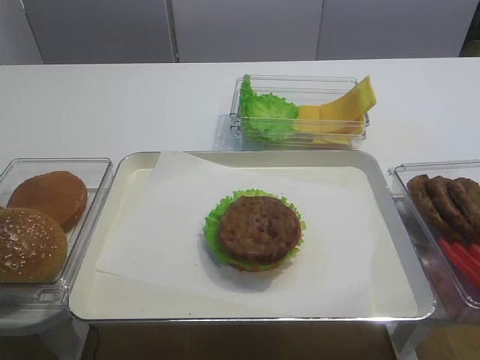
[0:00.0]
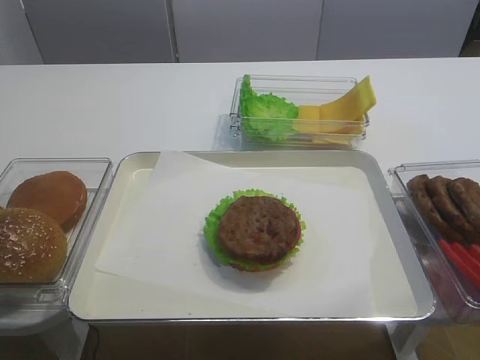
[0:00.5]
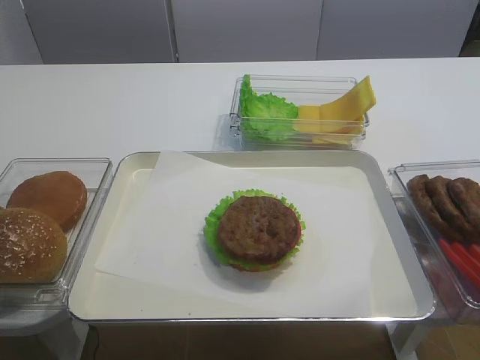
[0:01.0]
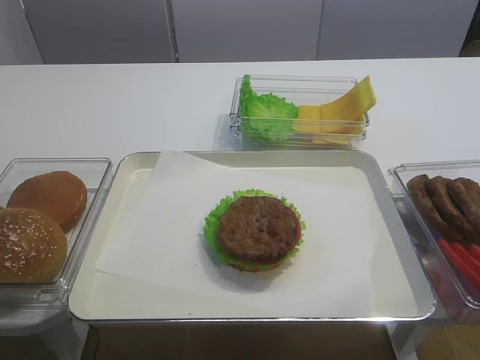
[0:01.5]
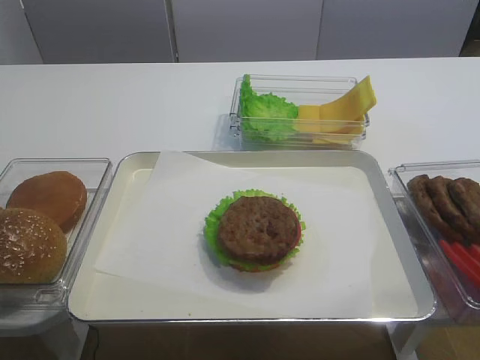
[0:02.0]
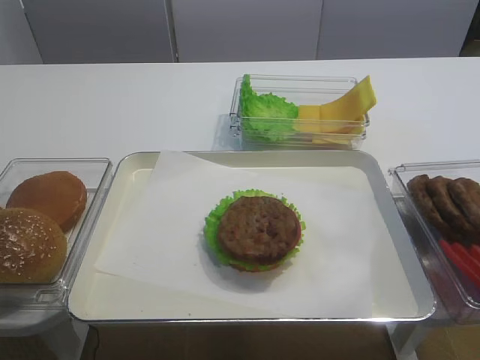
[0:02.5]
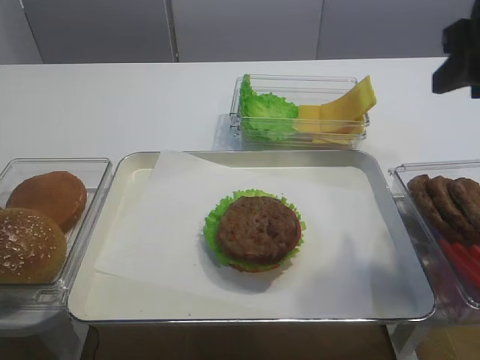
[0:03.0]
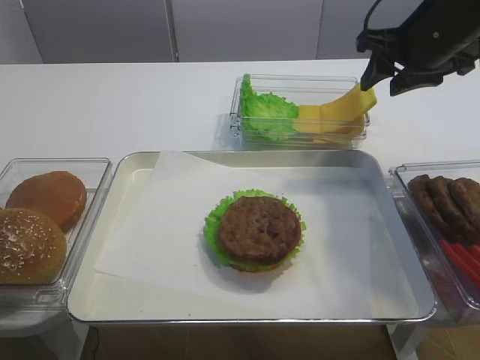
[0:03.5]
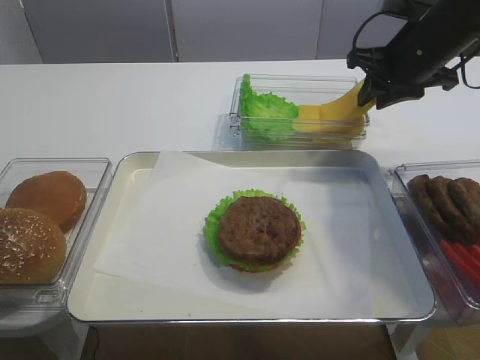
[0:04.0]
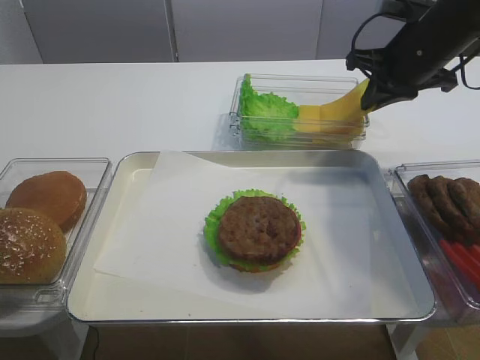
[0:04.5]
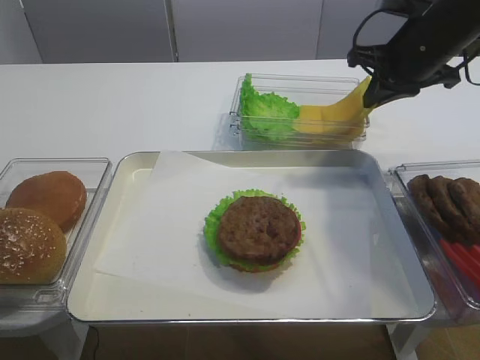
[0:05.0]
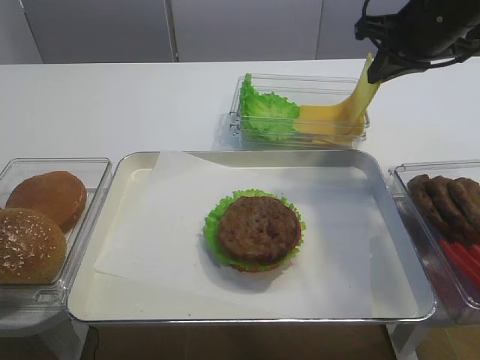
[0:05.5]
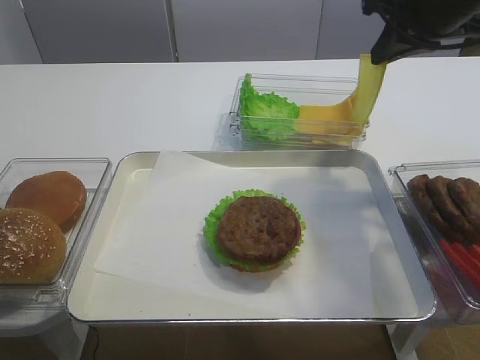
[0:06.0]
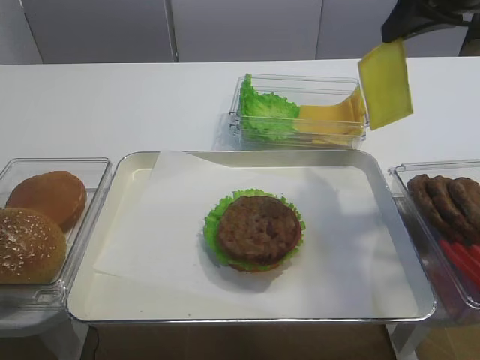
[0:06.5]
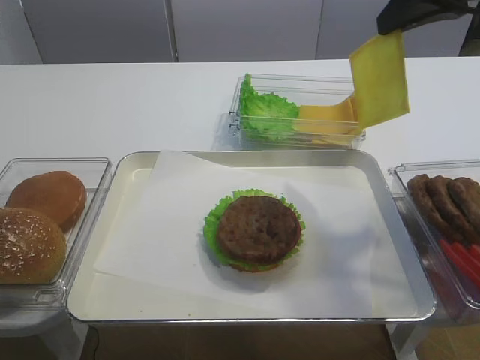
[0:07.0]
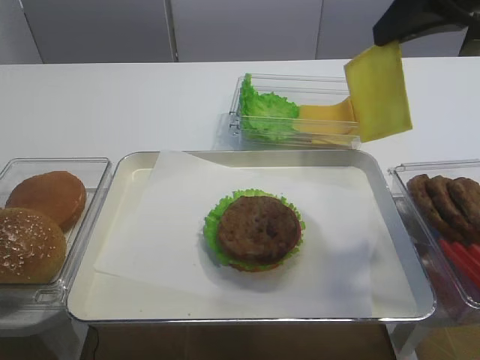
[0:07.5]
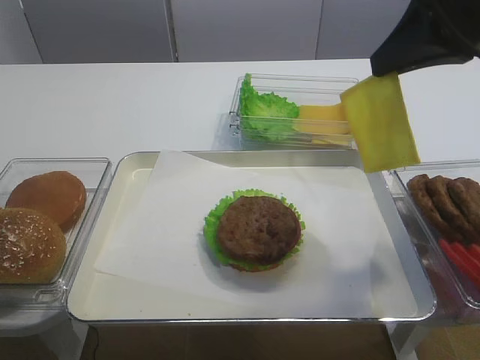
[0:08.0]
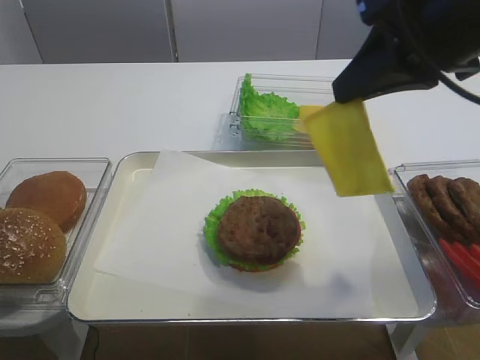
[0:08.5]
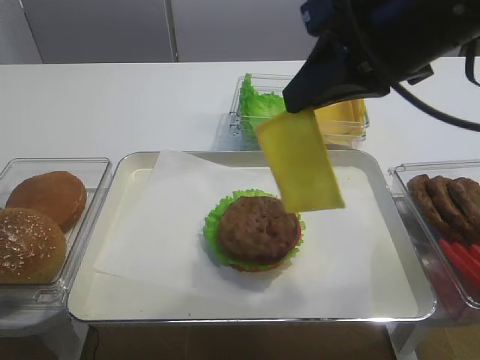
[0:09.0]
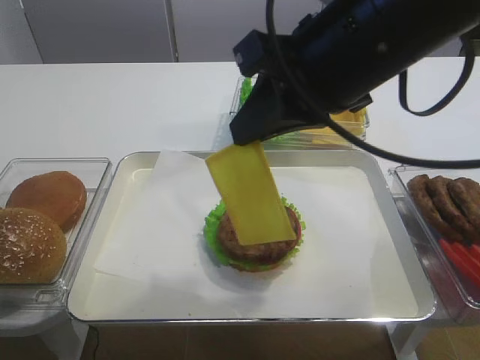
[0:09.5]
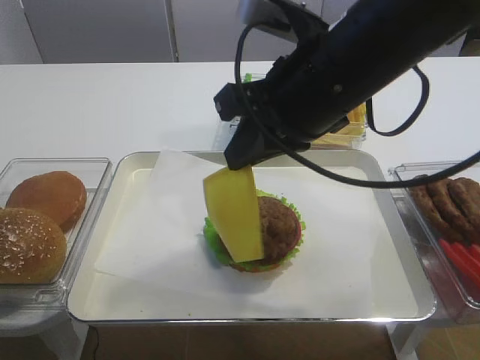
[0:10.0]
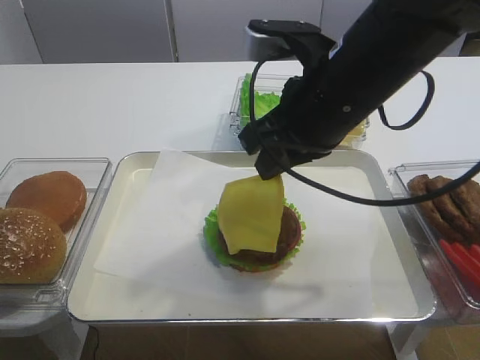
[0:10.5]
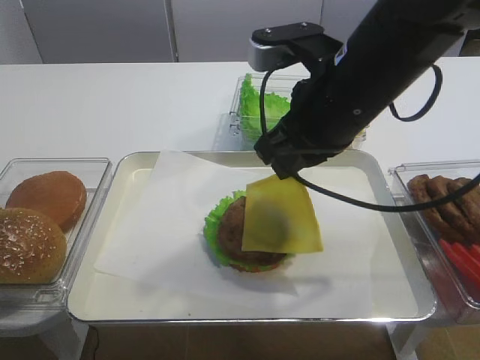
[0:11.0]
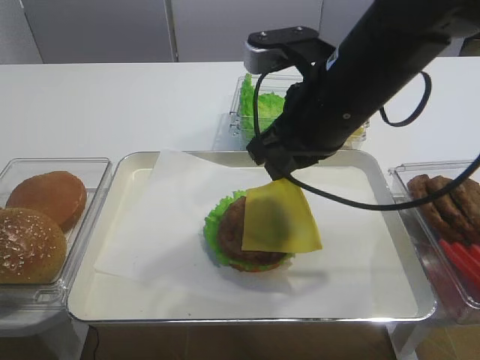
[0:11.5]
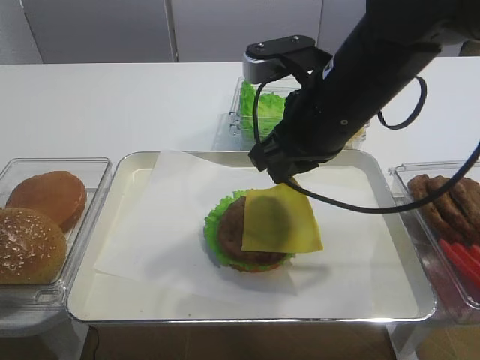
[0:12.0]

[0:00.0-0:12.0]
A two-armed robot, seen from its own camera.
Step, 0:00.0 to 0:07.0: Pick up the cheese slice with the right gripper.
0:02.0 to 0:04.0: The right gripper is displaced forward by approximately 40 cm.
0:04.0 to 0:06.0: The right gripper travels upward by approximately 5 cm, and closes its fingers.
0:06.0 to 0:08.0: The right gripper is displaced backward by approximately 10 cm.
0:08.0 to 0:10.0: The right gripper is displaced to the left and downward by approximately 15 cm.

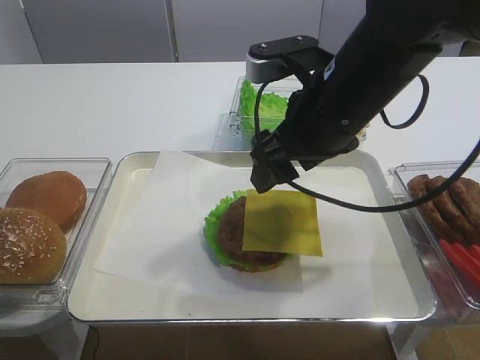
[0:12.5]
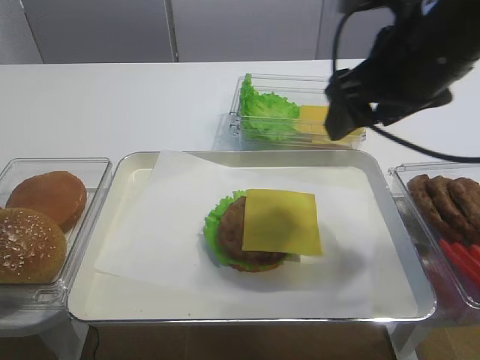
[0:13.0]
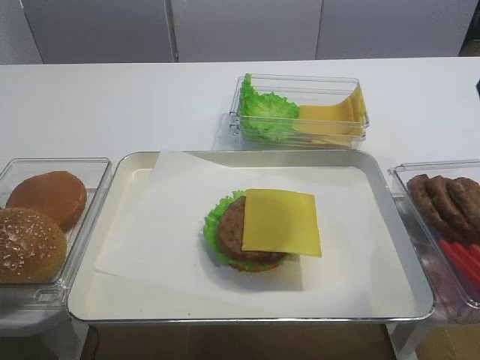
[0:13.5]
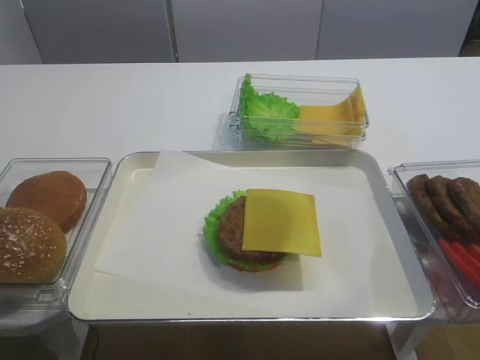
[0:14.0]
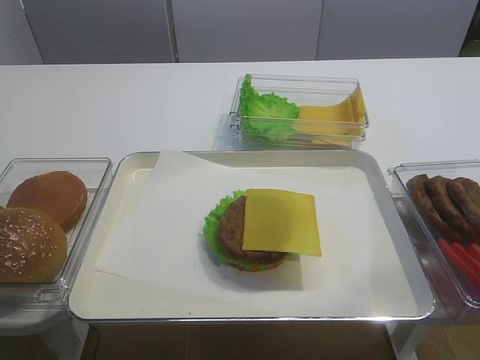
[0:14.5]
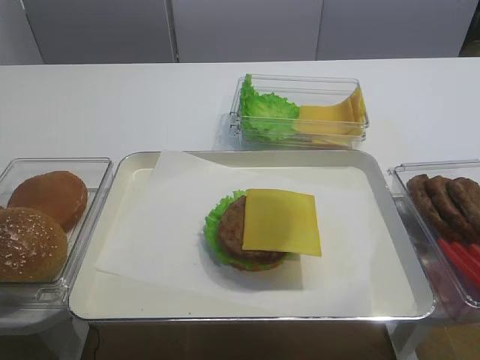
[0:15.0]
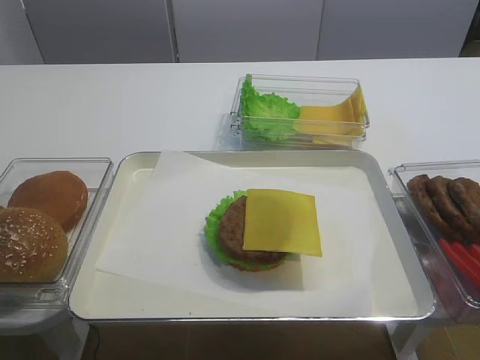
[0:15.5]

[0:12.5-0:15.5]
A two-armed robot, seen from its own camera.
0:12.5 to 0:14.0: The right gripper heads to the right, backward and upward, covering about 25 cm.

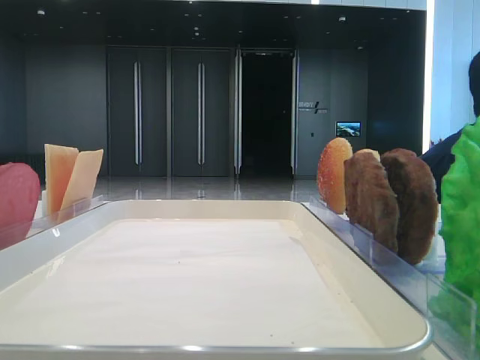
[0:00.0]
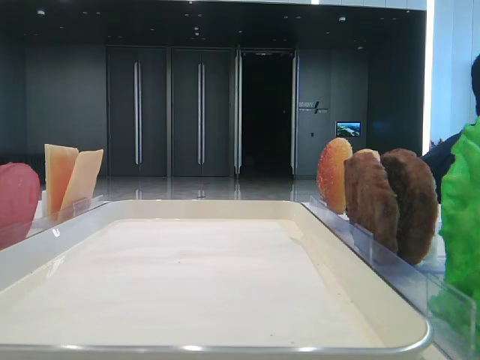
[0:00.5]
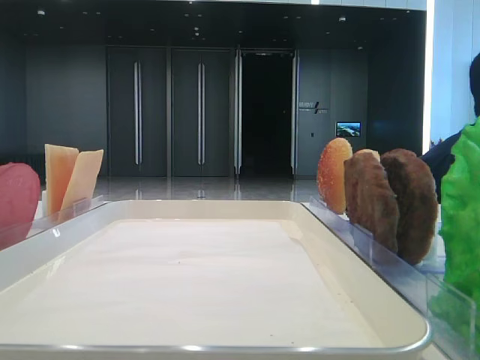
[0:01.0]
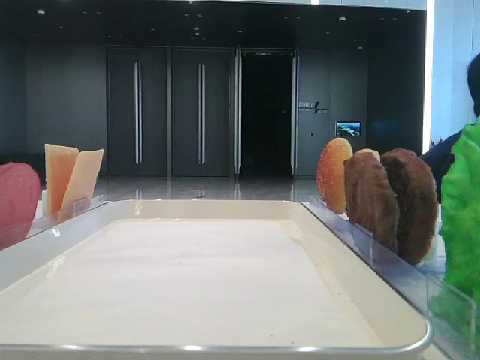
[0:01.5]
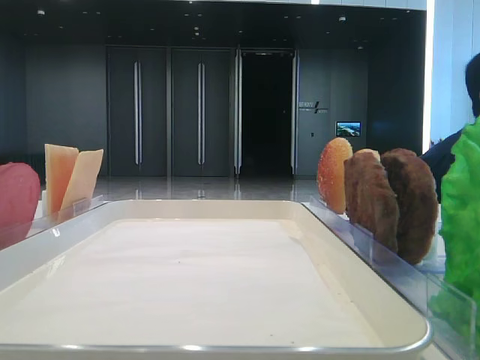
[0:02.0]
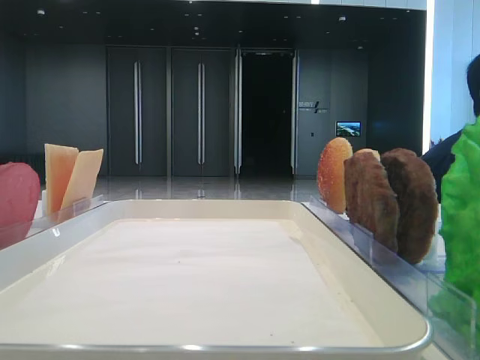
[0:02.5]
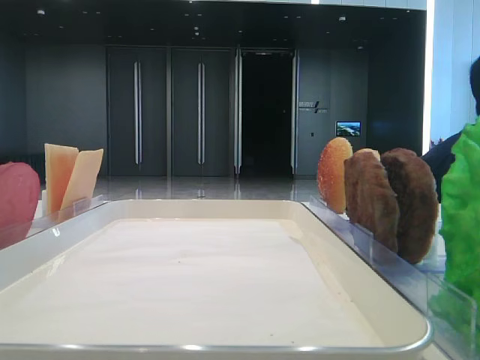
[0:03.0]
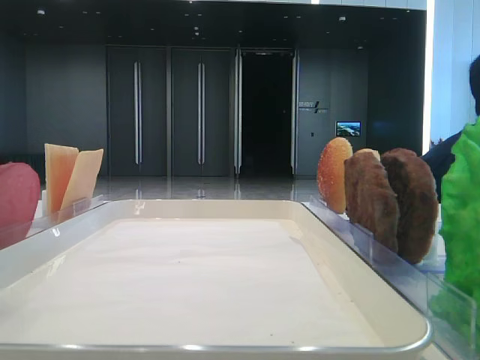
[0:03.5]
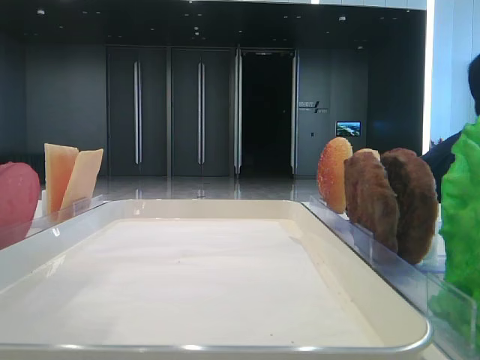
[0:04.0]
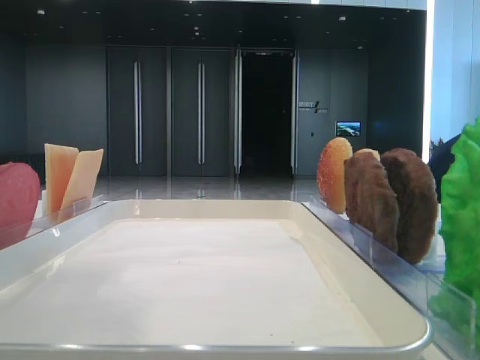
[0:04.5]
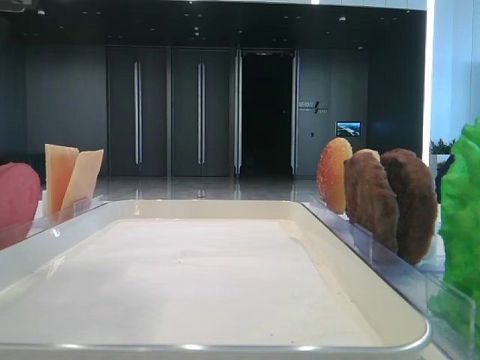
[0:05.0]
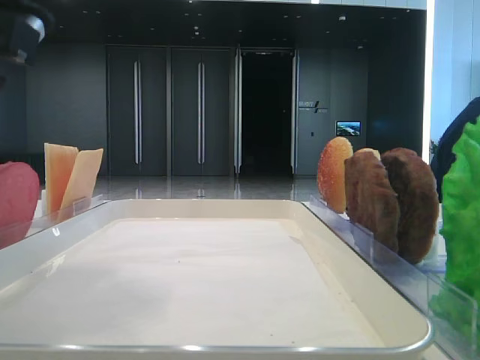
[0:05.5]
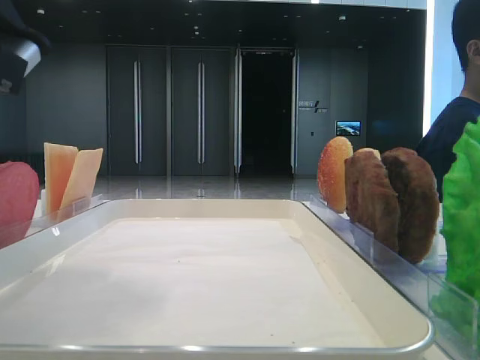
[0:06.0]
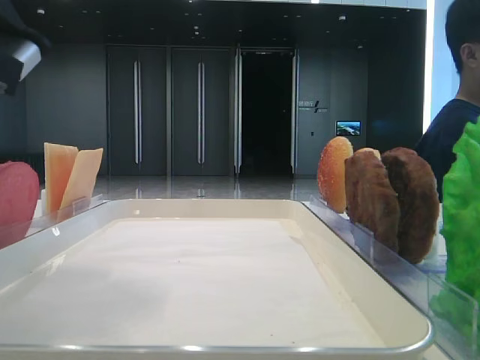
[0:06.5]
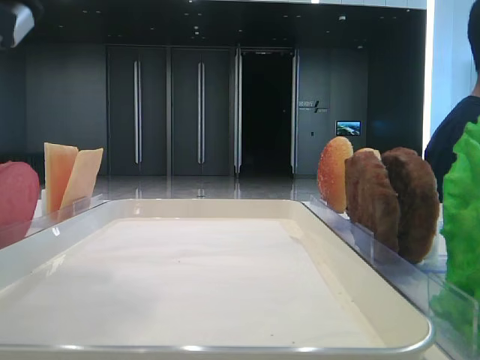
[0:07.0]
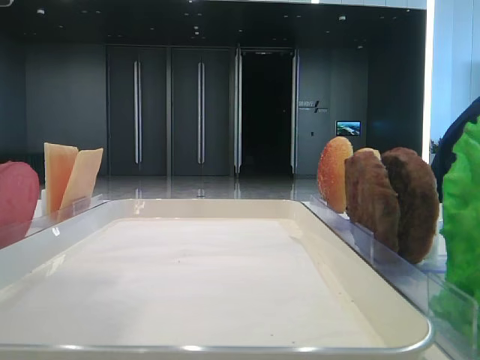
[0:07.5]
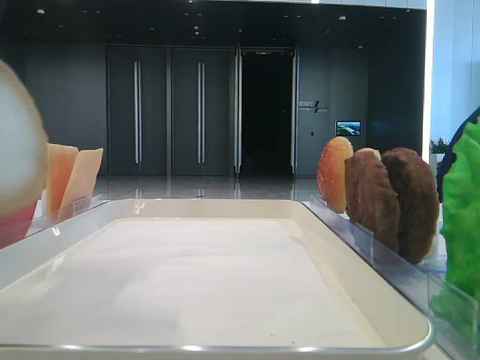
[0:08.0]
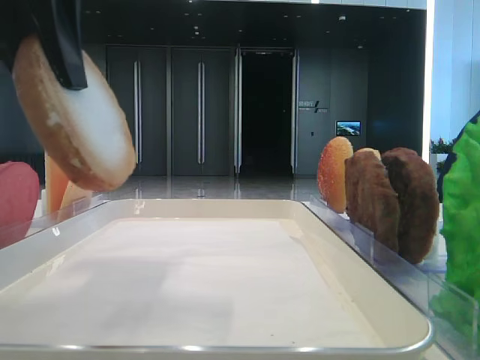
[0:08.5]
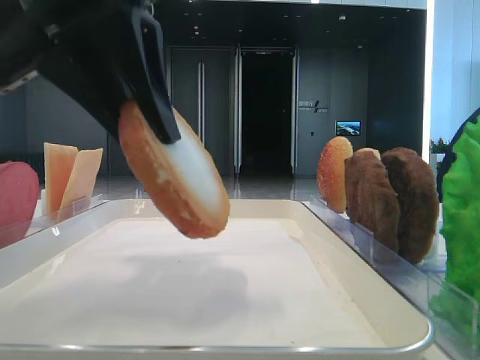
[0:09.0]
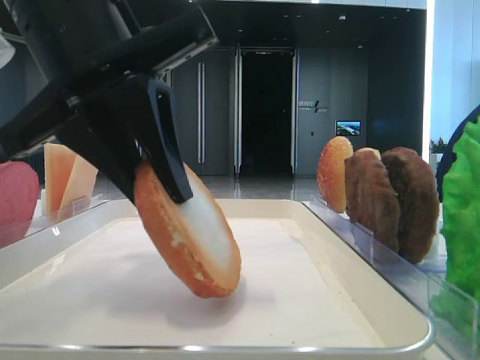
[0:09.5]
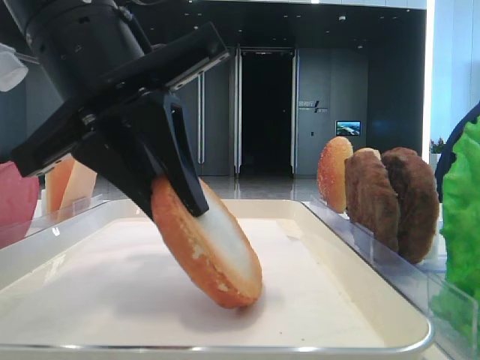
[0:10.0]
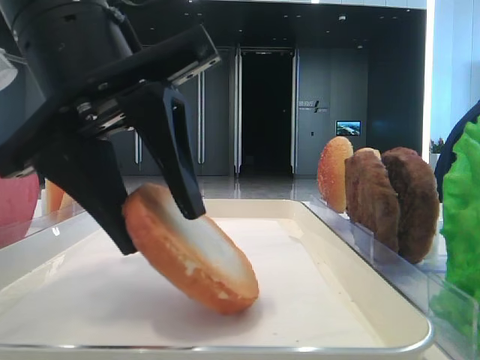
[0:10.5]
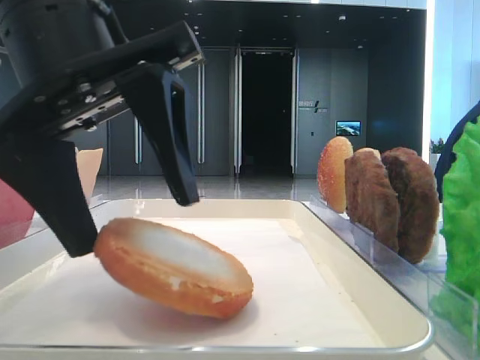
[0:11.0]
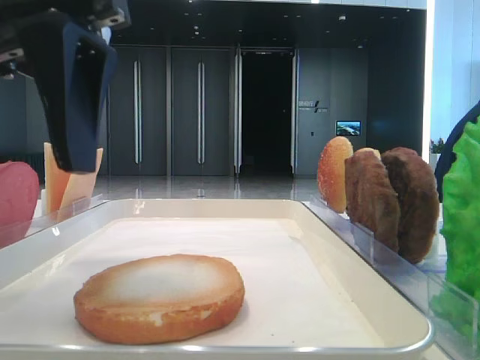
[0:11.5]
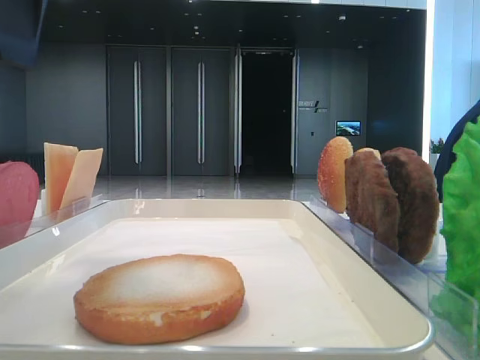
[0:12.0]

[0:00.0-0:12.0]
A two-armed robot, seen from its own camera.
Step, 0:00.0 to 0:06.5: Pick up the bottom bread with the left hand.
Step, 0:07.0 to 0:11.0: Place the bread on the tray with the left hand.
0:02.0 to 0:04.0: The left gripper heads to the right and forward, covering roughly 15 cm.
0:04.0 to 0:06.0: The left gripper heads downward, covering about 10 cm.
0:06.0 to 0:08.0: The left gripper travels upward by roughly 5 cm, and closes its fingers.
0:08.0 to 0:10.0: The left gripper heads downward and to the right, covering about 10 cm.
0:10.0 to 0:12.0: The left gripper heads upward and to the left, covering roughly 10 cm, and opens.
